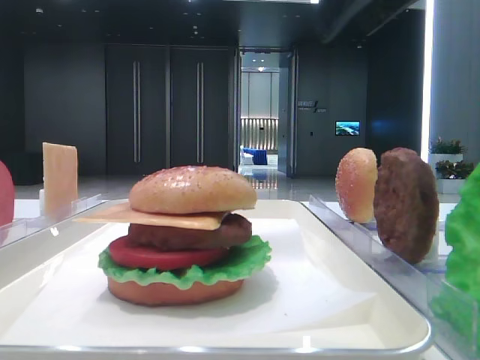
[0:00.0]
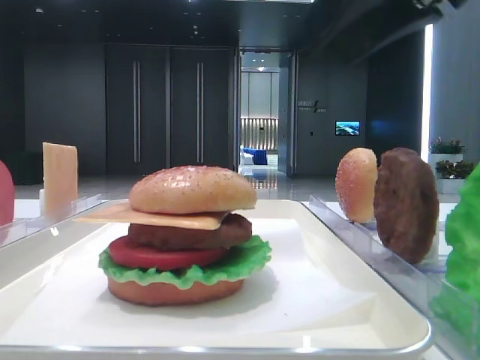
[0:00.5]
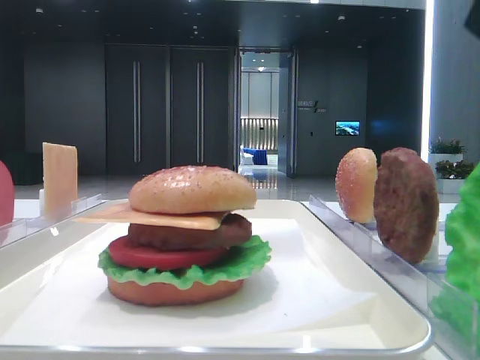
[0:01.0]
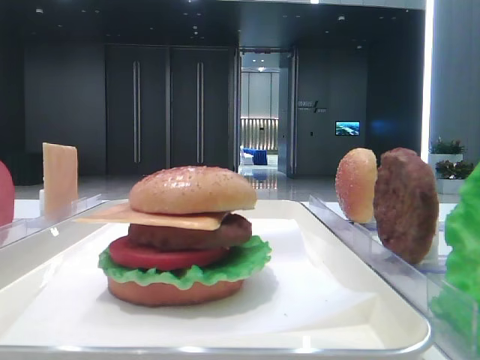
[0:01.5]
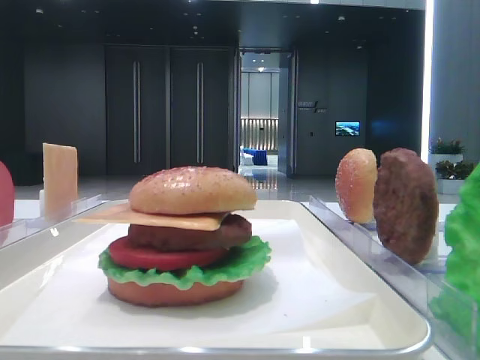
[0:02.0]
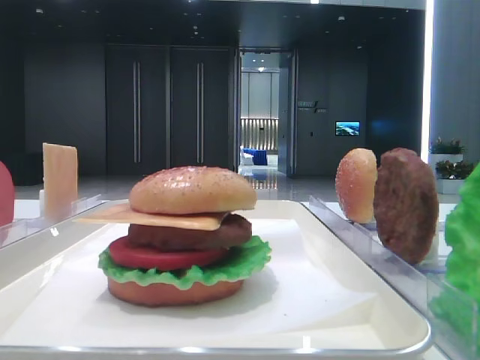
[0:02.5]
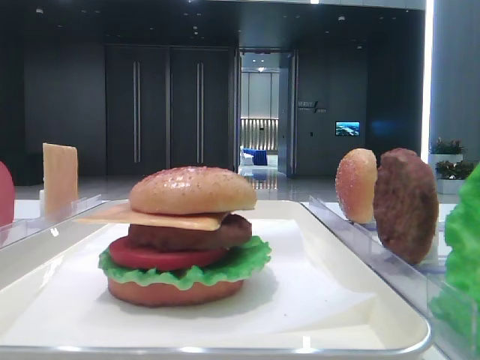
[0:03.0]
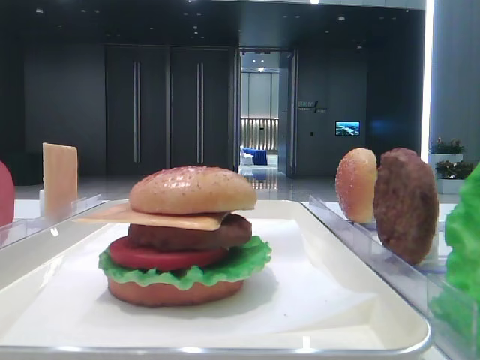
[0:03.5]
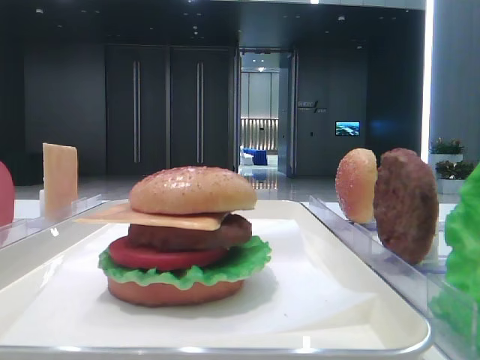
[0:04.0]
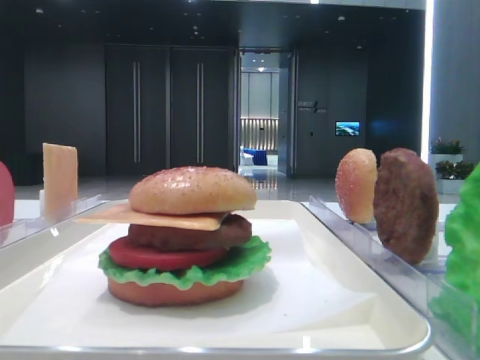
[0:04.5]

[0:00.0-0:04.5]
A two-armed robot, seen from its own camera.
0:00.0 to 0:02.0: The right gripper moves backward and to the right, some 30 cm.
